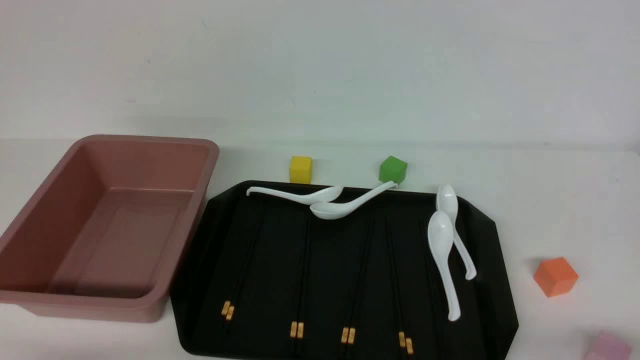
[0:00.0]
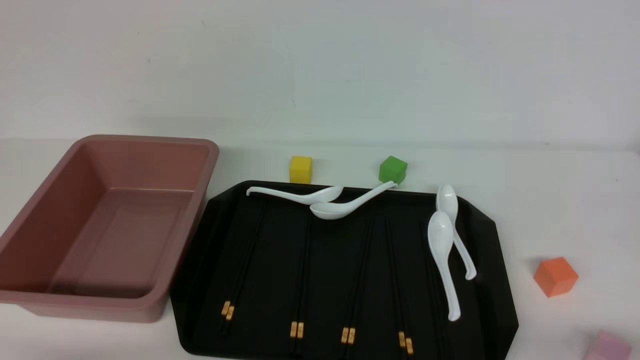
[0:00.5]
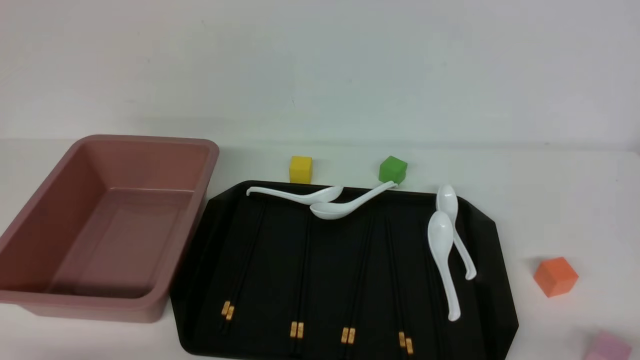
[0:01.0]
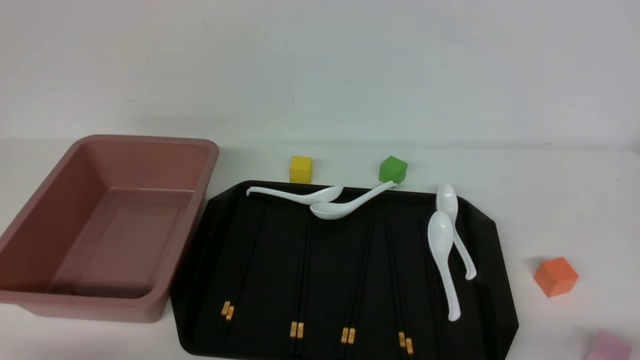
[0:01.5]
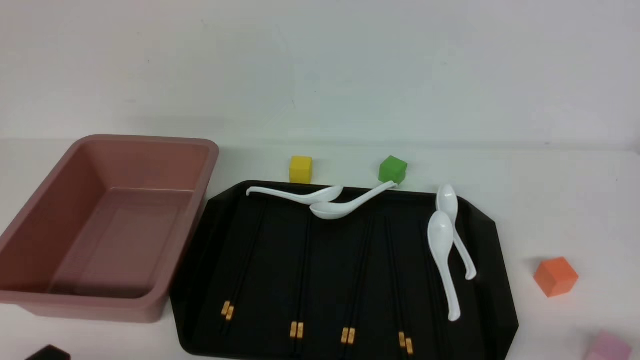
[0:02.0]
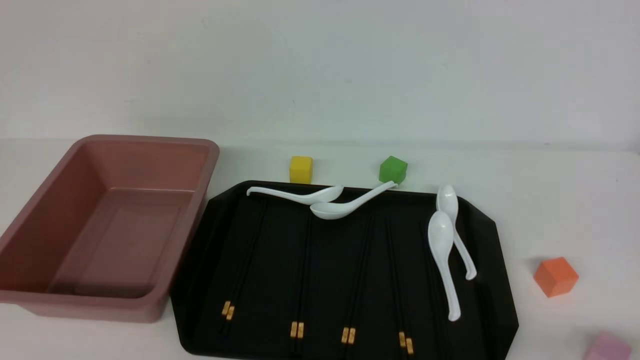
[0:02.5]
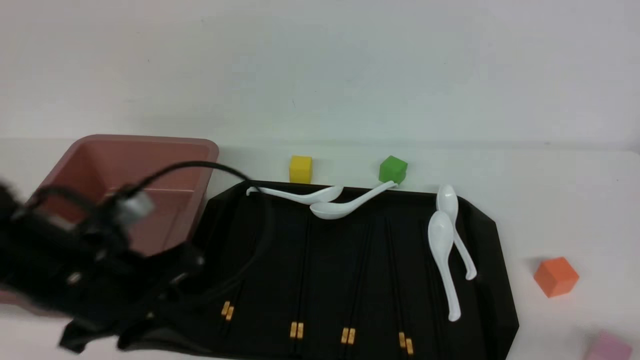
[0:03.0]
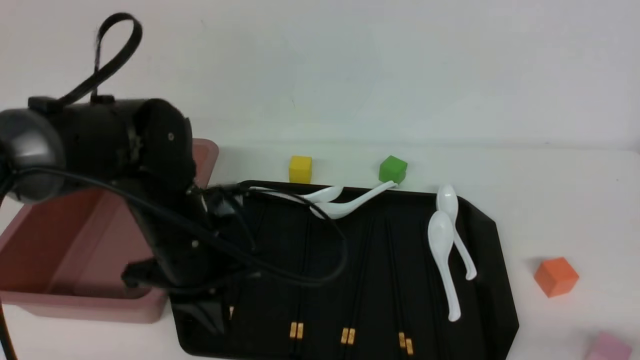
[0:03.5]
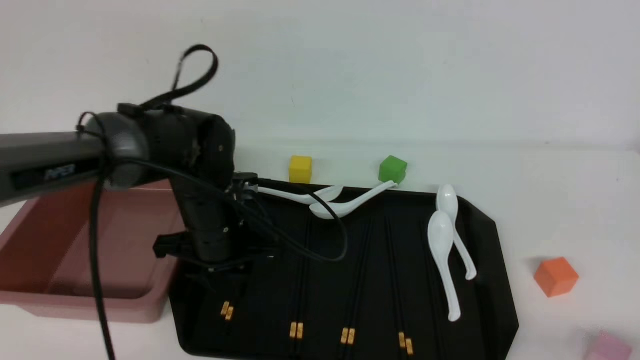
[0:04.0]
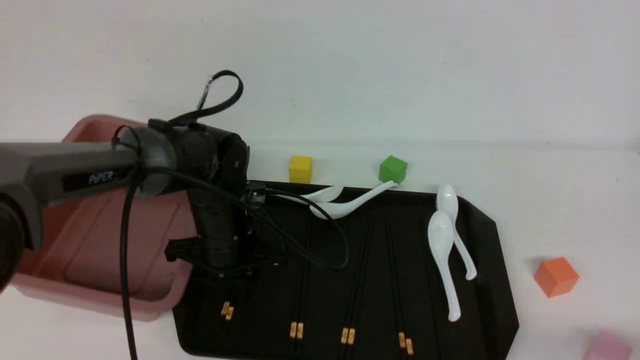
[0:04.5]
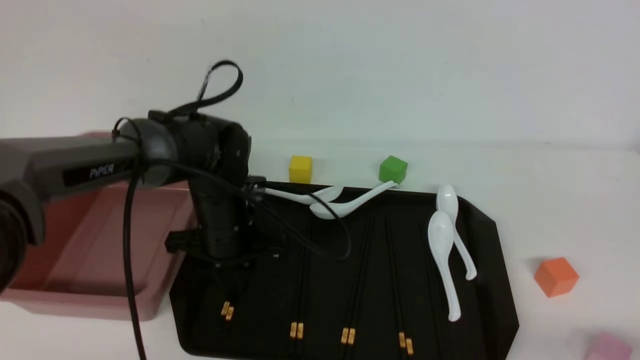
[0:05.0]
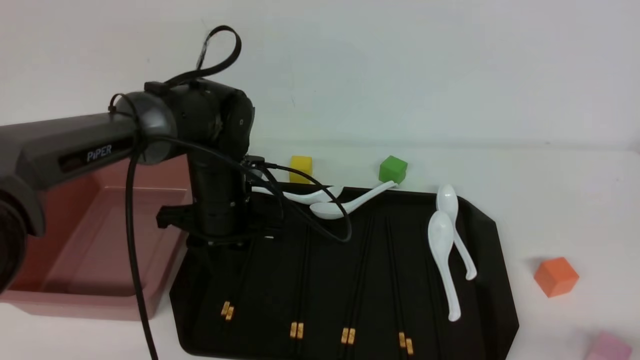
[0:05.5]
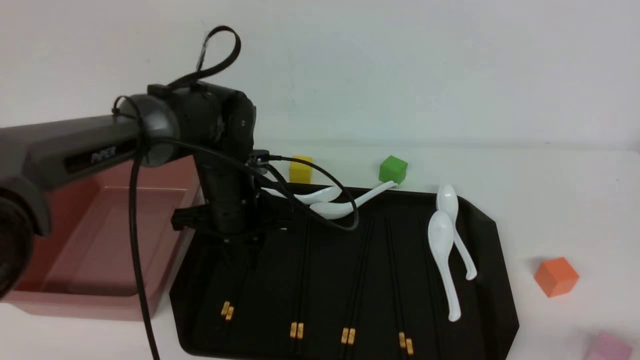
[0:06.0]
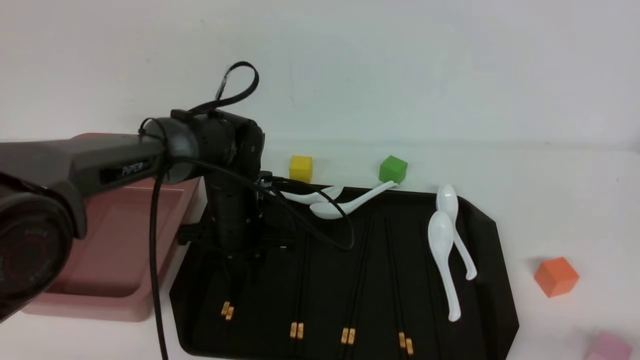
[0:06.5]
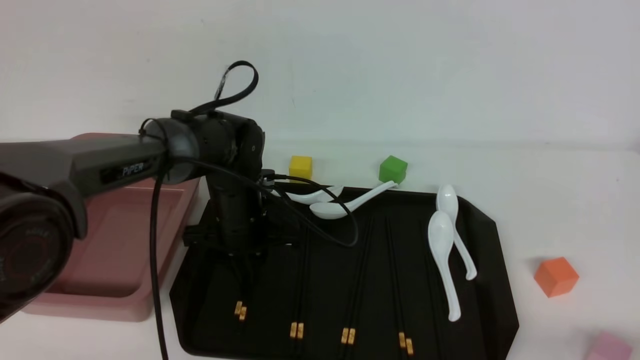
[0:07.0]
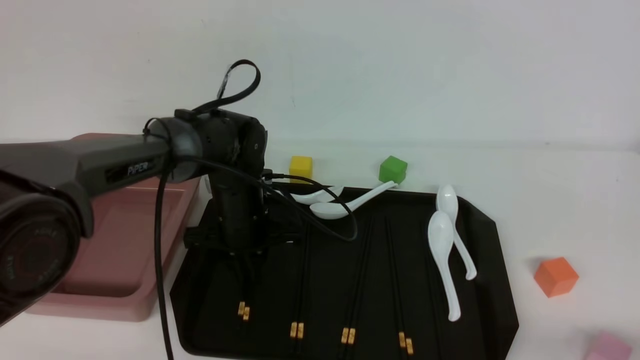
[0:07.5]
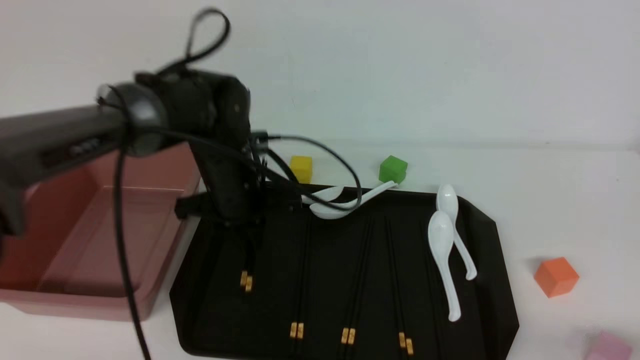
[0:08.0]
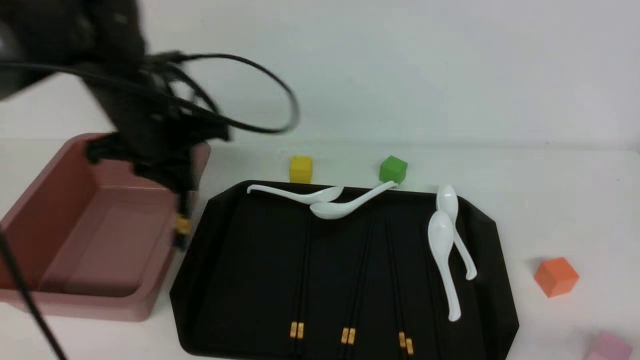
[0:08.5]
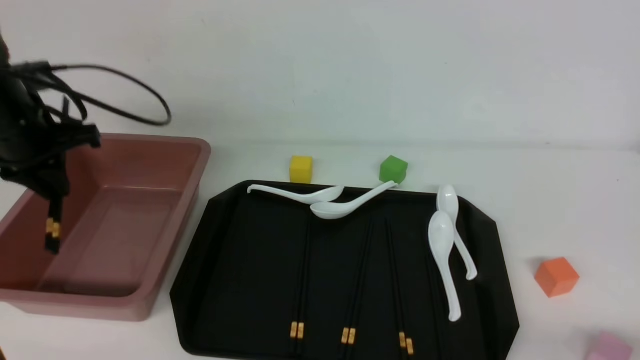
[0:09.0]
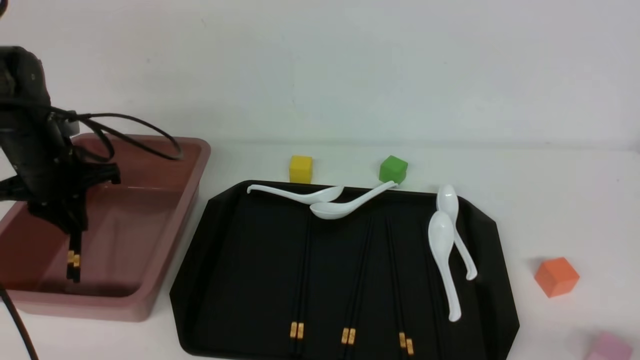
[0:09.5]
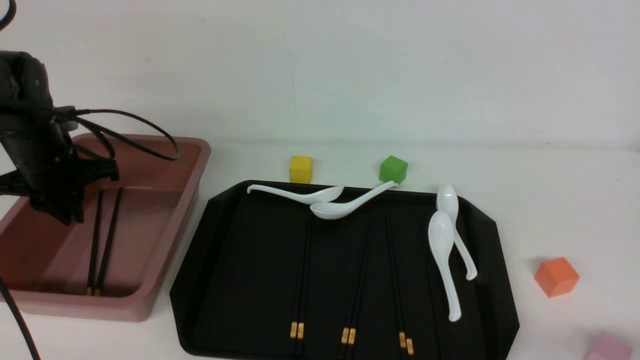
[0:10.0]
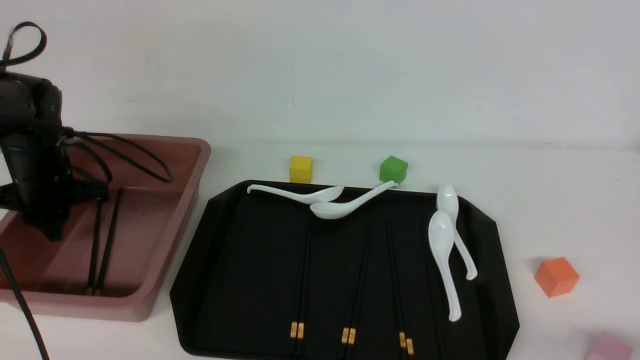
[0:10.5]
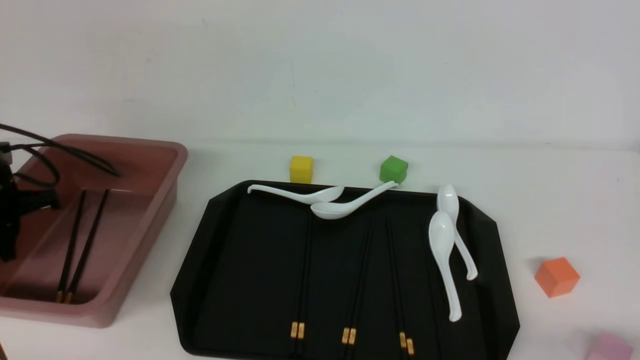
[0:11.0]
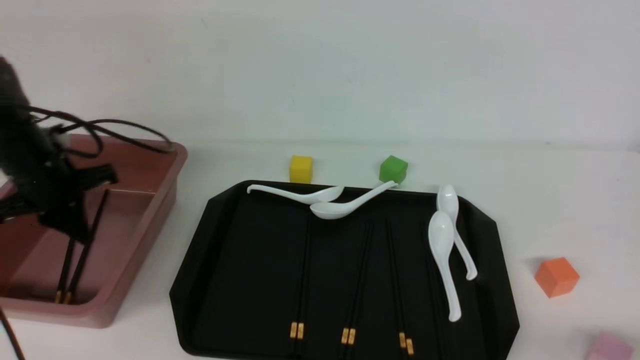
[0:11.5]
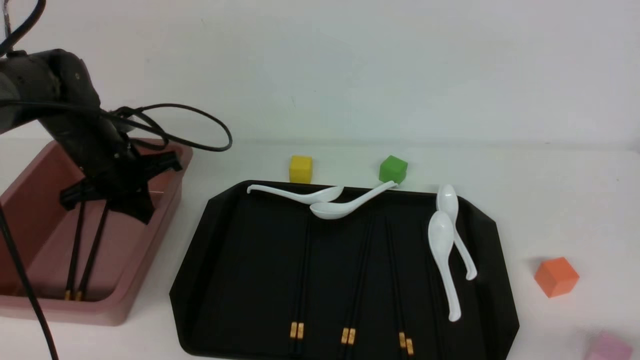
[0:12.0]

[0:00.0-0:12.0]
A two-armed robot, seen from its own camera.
Step, 0:00.0 to 0:08.0: use the left arm to grab a pair of chopsticks.
Step, 0:08.5 to 0:10.0: use the left arm to put the chopsticks into the lunch box.
0:02.0 to 0:04.0: The left gripper travels forward and to the right by approximately 30 cm, and closes and opens again.
0:04.0 to 0:06.0: There are only small adjustments of the grippers.
0:06.0 to 0:08.0: The left gripper closes up.
0:08.0 to 0:10.0: The left gripper travels to the left by approximately 20 cm.
0:10.0 to 0:12.0: The left gripper goes some 5 cm to the right.

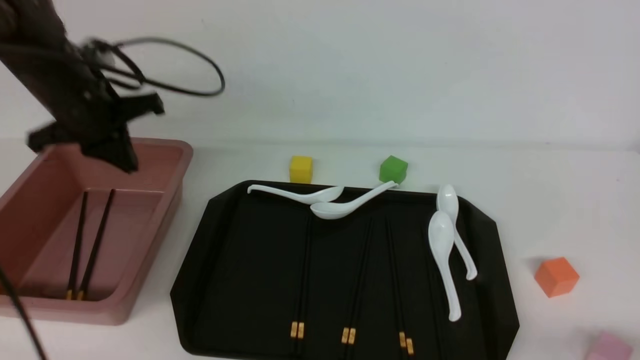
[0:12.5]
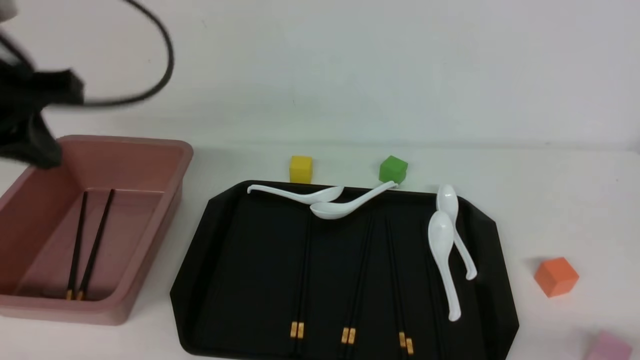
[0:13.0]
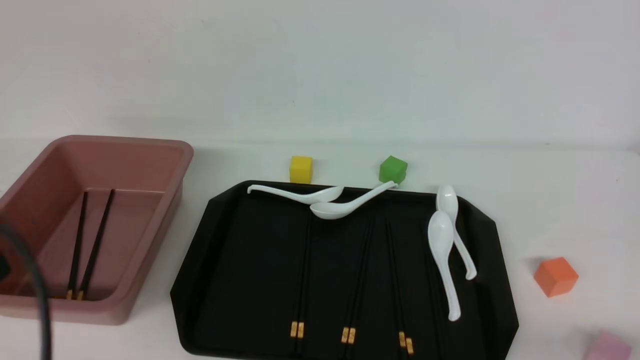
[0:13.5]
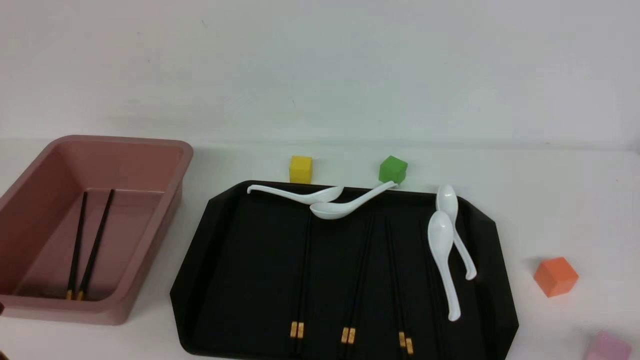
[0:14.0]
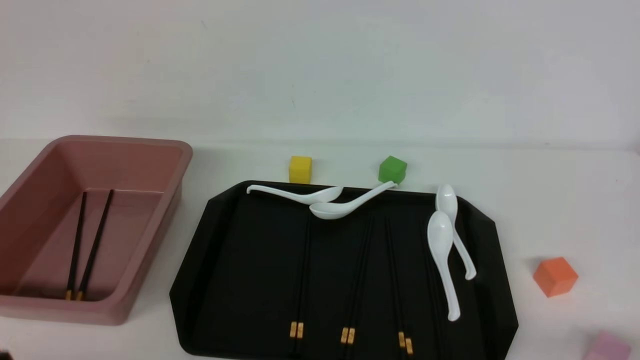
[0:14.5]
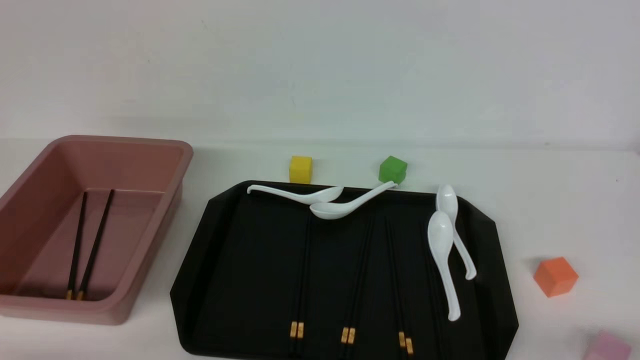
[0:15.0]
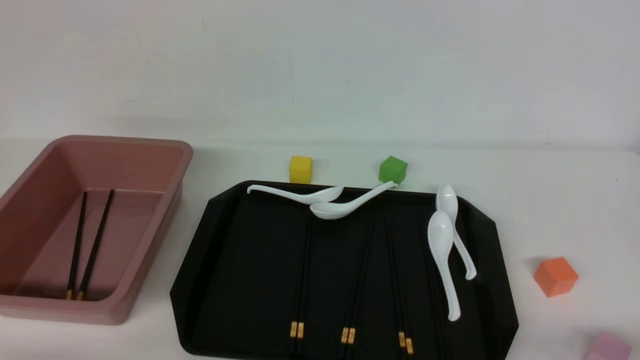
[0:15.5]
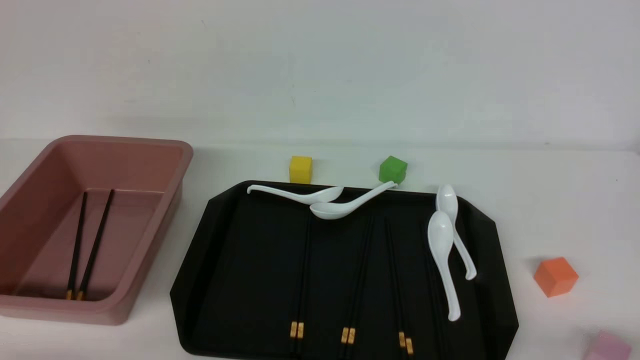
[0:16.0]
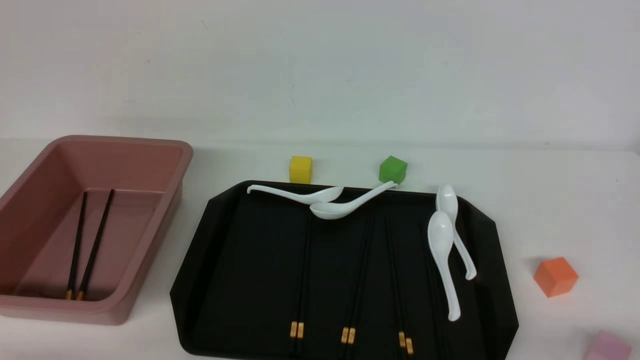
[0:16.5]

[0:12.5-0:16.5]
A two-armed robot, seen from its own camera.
0:12.5 to 0:14.5: The left gripper travels backward by roughly 35 cm.

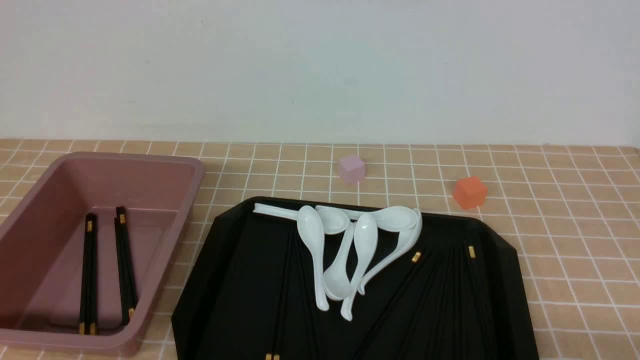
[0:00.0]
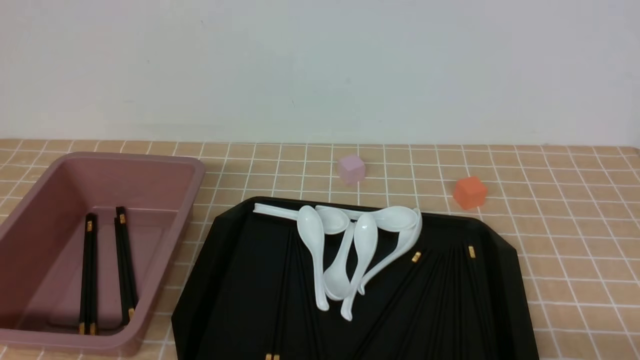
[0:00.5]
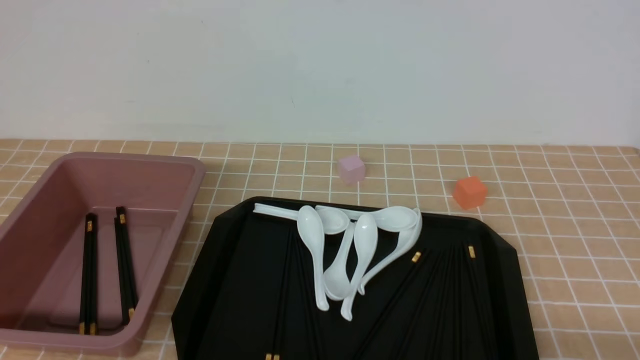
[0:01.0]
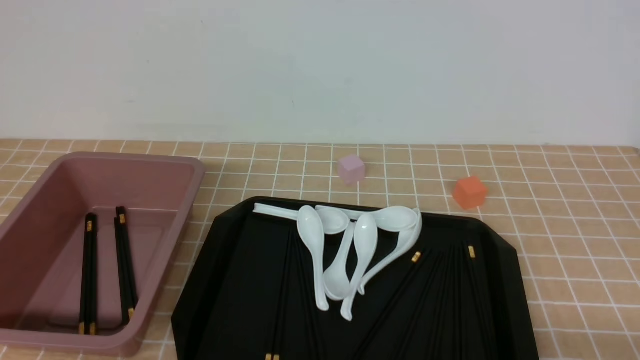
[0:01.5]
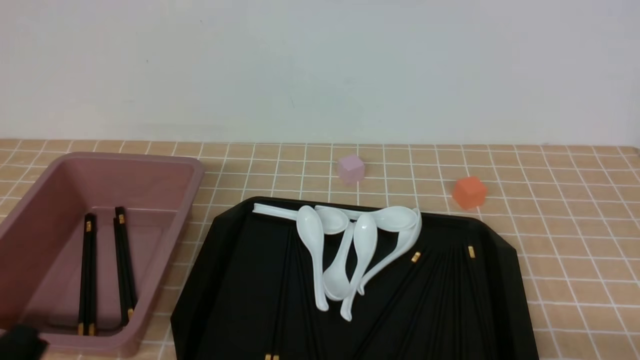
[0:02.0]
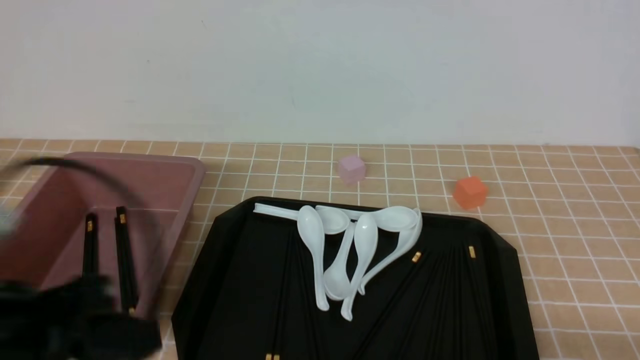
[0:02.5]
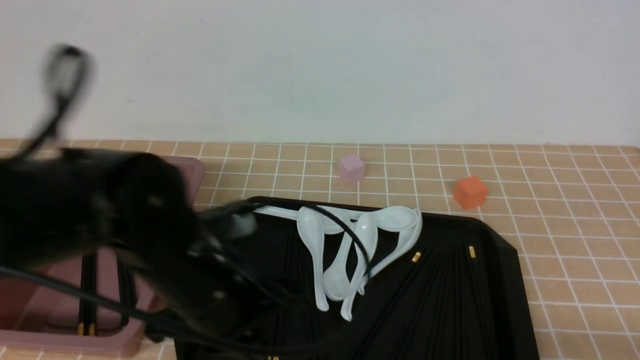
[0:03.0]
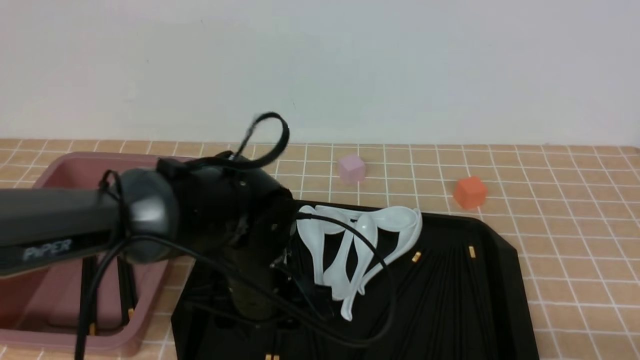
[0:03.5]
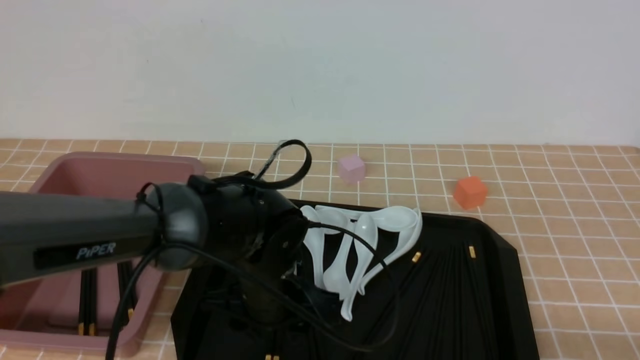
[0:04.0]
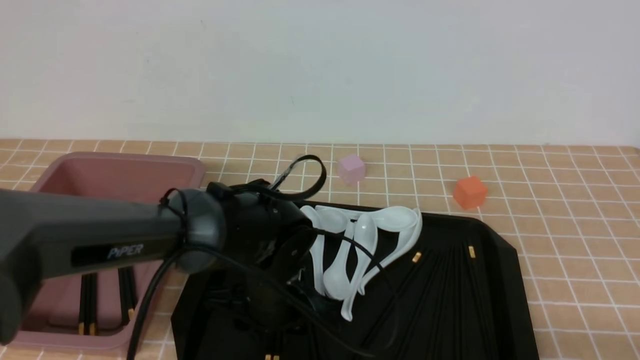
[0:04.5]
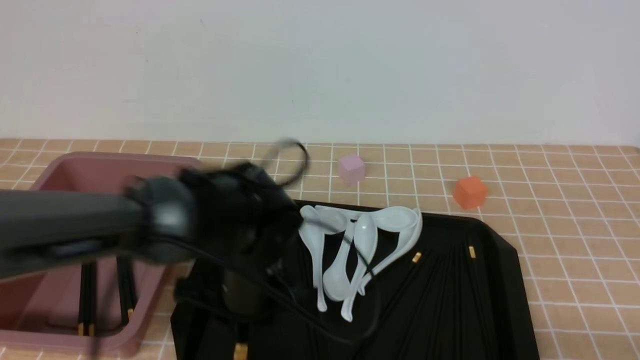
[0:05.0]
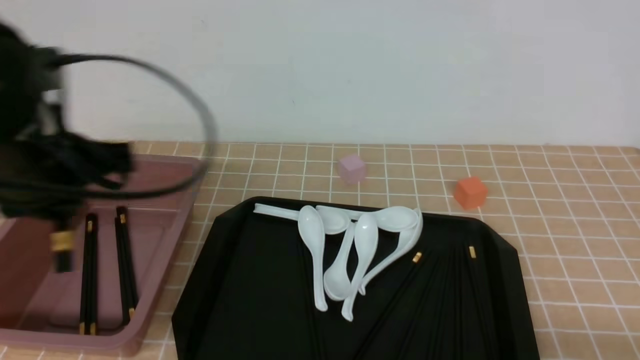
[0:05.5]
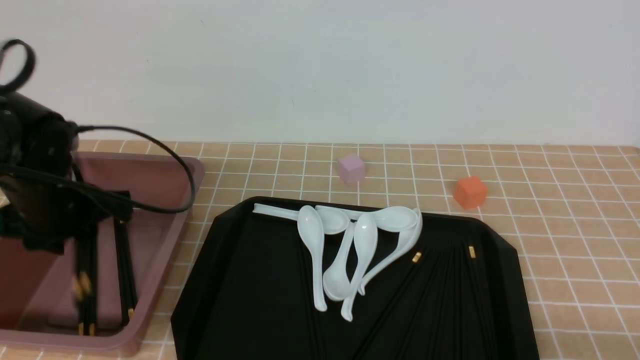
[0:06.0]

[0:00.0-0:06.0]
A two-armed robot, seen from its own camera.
Step, 0:00.0 to 0:04.5: use the left arm to grab a pair of chopsticks.
0:00.0 to 0:02.0: The left gripper shifts approximately 5 cm upward.
0:02.0 to 0:04.0: The left gripper moves forward and to the right, about 30 cm, and opens its fingers.
0:04.0 to 0:06.0: The left gripper travels to the left and upward by roughly 20 cm, and closes.
